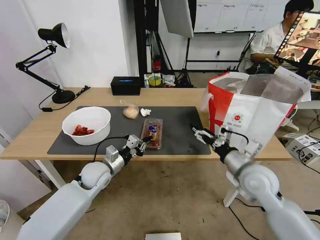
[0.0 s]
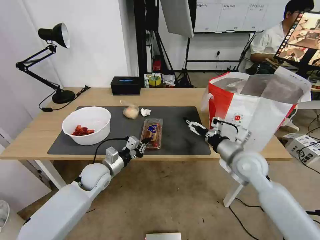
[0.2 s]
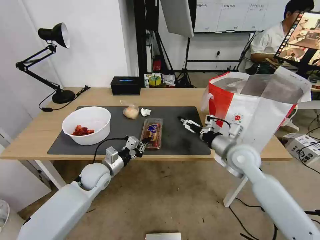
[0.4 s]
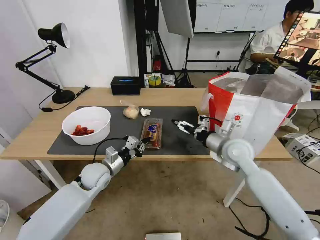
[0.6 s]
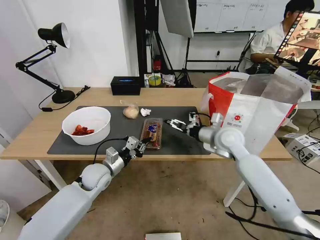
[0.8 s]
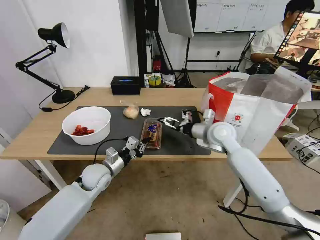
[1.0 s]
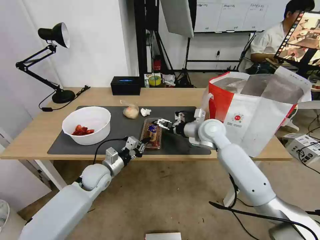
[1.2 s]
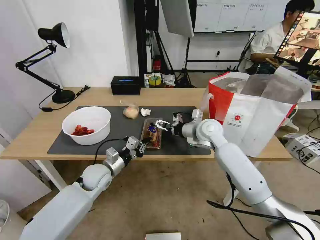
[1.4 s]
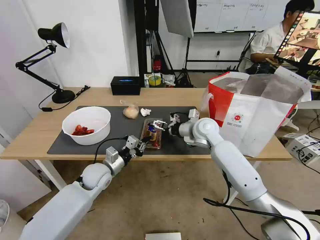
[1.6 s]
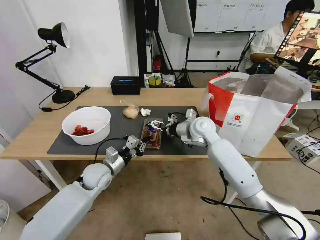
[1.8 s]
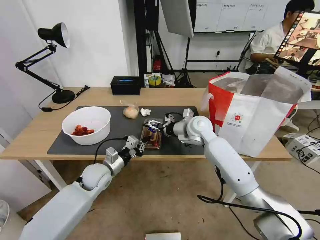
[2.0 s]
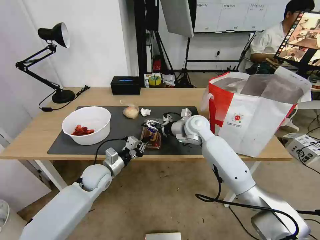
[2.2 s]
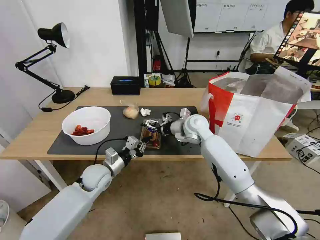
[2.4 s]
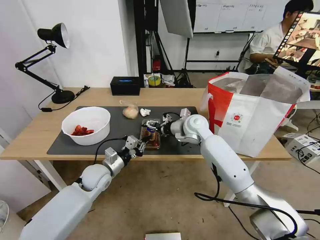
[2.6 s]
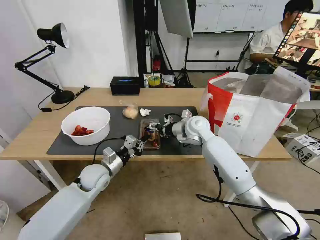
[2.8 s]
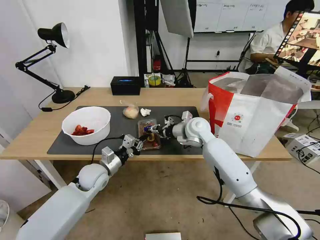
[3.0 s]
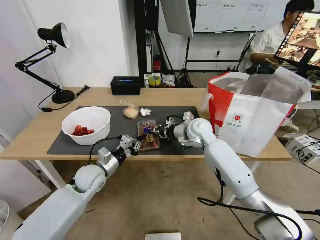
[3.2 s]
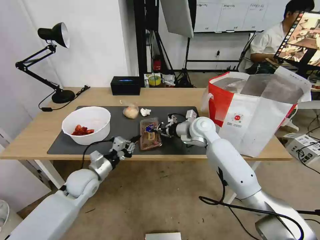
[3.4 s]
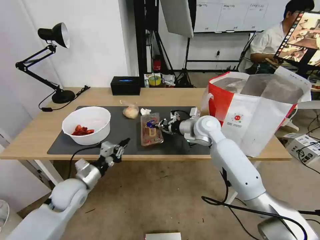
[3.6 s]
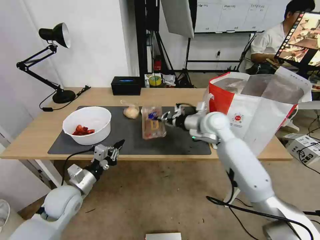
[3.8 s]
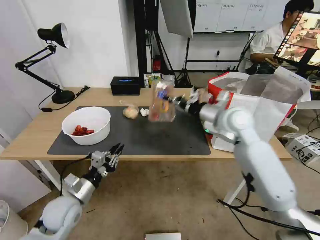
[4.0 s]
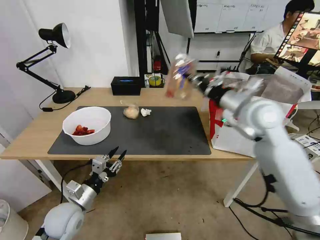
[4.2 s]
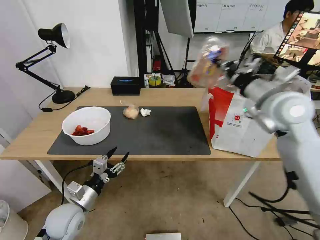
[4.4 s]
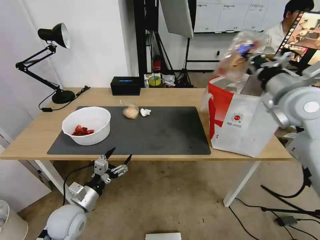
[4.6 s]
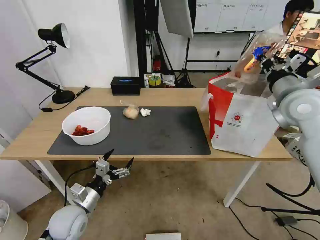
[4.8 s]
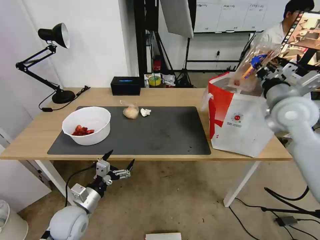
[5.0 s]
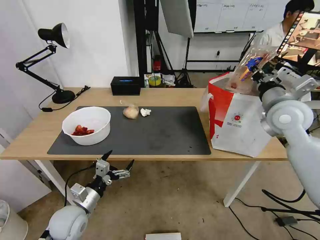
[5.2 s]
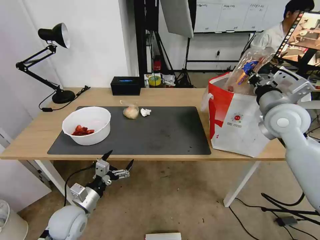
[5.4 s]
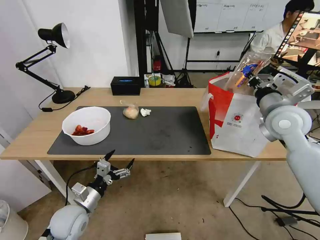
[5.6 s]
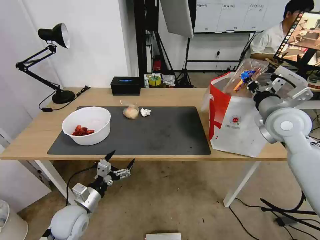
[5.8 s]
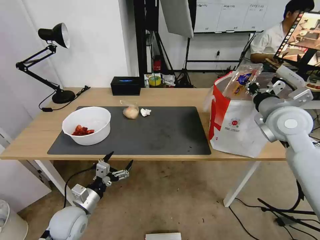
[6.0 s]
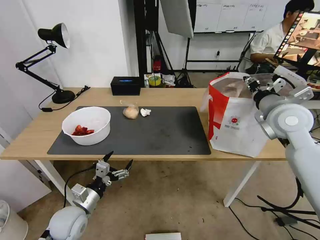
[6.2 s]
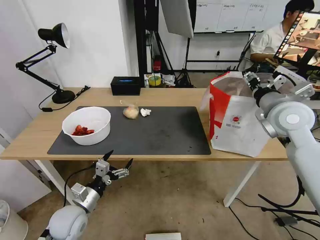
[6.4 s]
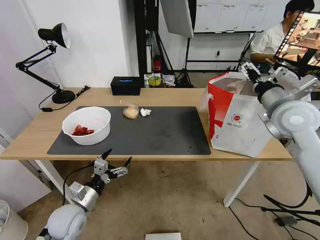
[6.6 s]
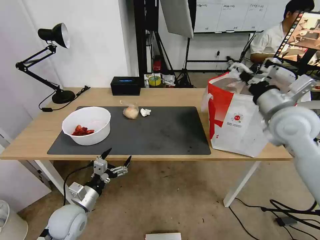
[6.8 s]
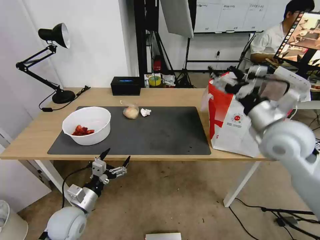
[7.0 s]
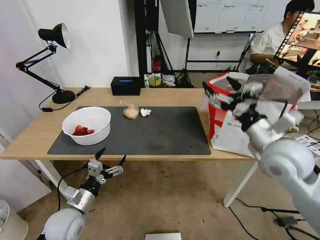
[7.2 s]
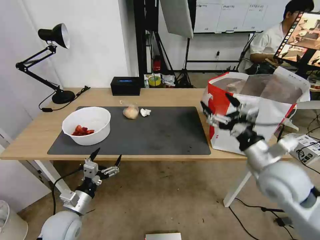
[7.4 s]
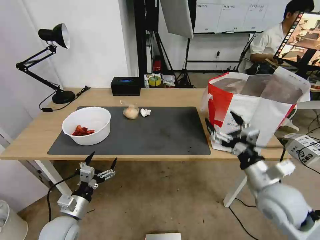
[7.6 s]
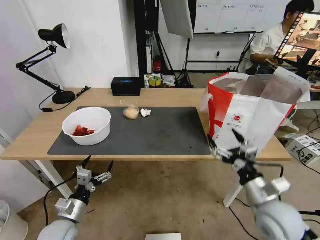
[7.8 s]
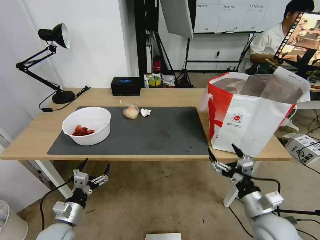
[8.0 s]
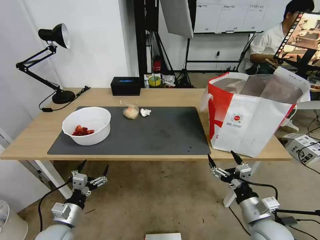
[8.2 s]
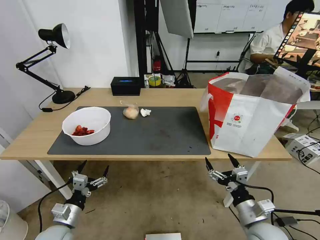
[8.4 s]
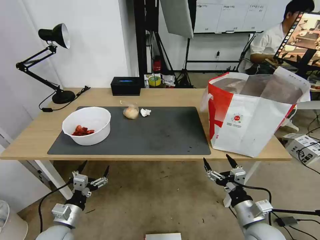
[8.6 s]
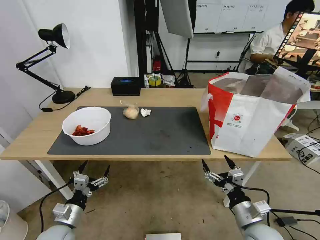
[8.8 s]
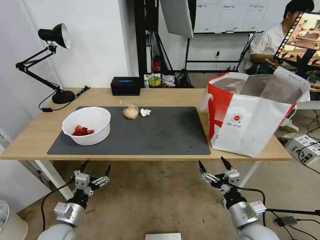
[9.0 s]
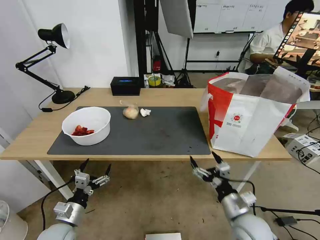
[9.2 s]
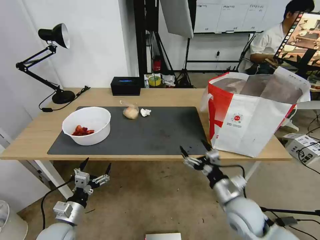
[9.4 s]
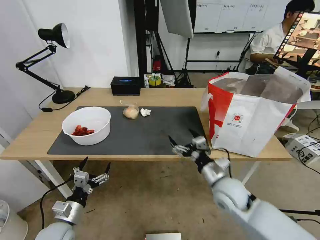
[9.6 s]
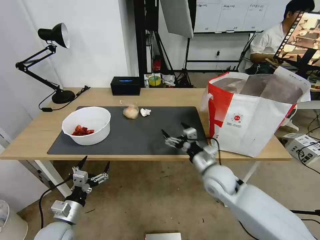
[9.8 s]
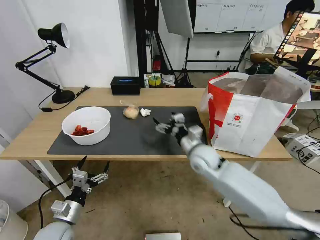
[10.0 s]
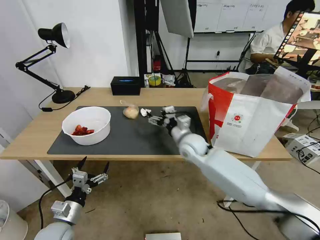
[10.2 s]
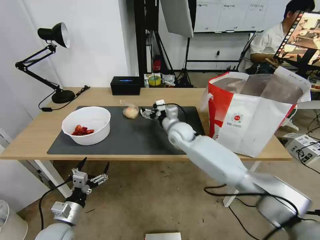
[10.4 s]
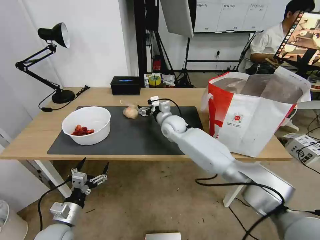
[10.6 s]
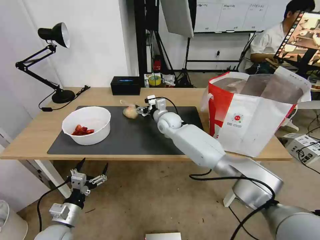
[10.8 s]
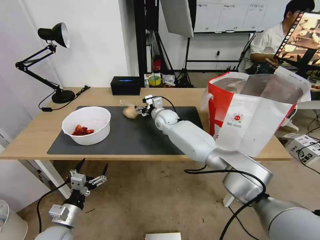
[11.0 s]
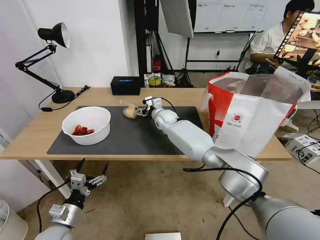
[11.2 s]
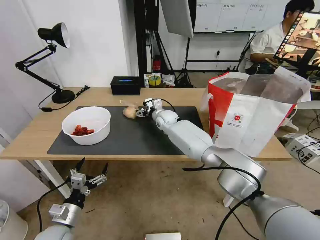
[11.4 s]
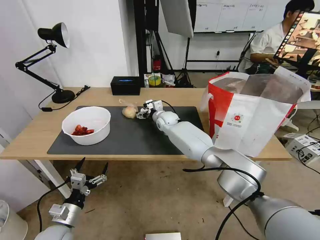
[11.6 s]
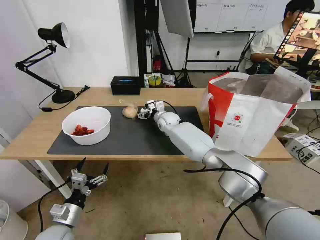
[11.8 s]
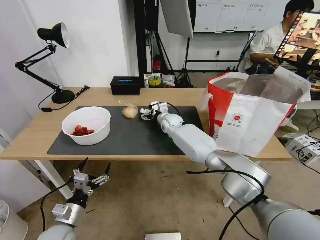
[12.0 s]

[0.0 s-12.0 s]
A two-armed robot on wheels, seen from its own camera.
Task of the whole recording: Pick up the trash from the table and place it into the takeout bag.
0.0 to 1.6 s: The right gripper is displaced forward and to the left by about 20 cm.
1.6 to 3.0 s: The right gripper closes up.
3.0 to 4.4 s: The right gripper moves upward, to the right and backward, about 25 cm, and closes its fingers. The left gripper is displaced backward by some 15 cm, and opens.
4.4 to 6.0 s: The right gripper ends up approximately 5 cm from where it was. The left gripper opens.
6.0 to 7.6 s: The right gripper goes some 20 cm backward and downward, and opens its fingers.
7.6 to 9.0 s: The right gripper is displaced downward and backward by approximately 15 cm.
9.0 to 10.4 s: The right gripper travels forward and to the left by about 40 cm.
10.4 to 12.0 s: The right gripper heads forward, covering about 10 cm.

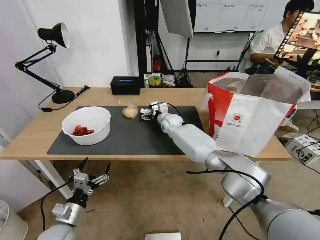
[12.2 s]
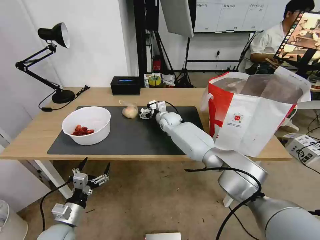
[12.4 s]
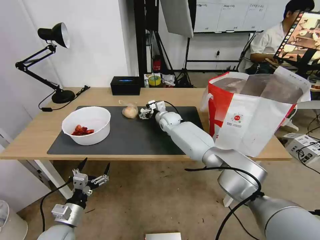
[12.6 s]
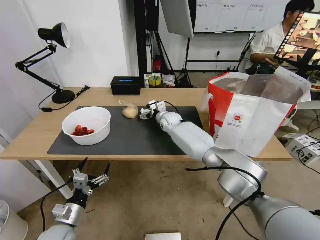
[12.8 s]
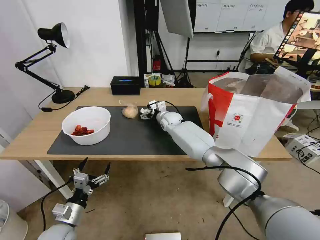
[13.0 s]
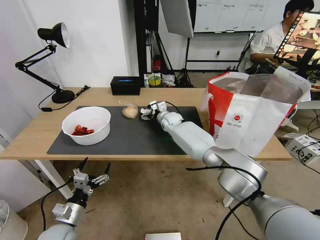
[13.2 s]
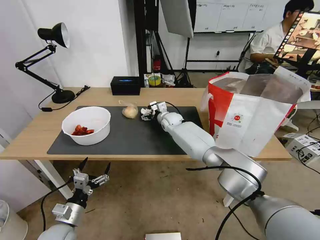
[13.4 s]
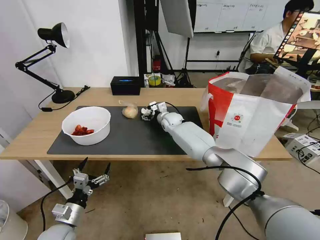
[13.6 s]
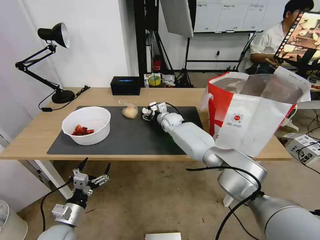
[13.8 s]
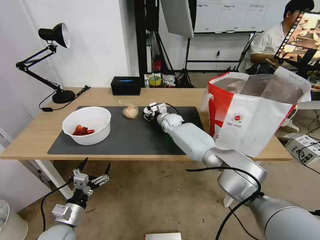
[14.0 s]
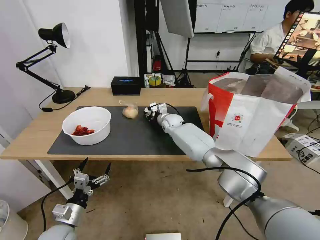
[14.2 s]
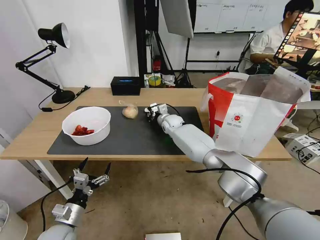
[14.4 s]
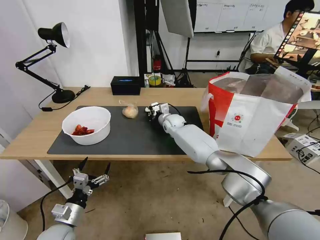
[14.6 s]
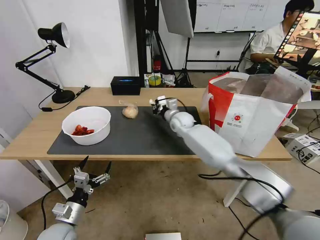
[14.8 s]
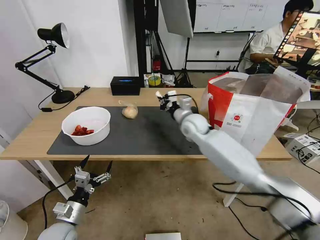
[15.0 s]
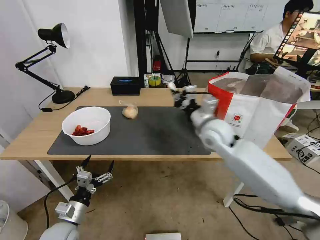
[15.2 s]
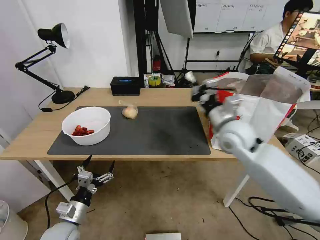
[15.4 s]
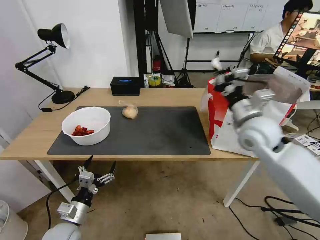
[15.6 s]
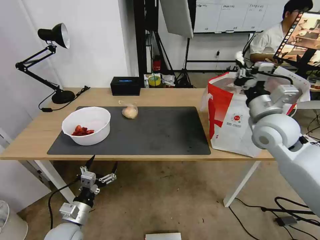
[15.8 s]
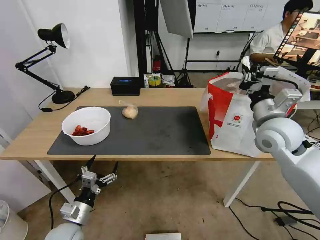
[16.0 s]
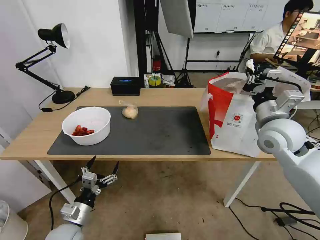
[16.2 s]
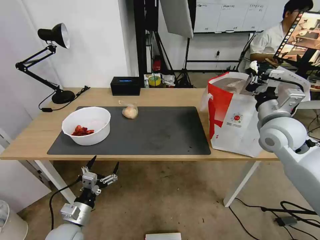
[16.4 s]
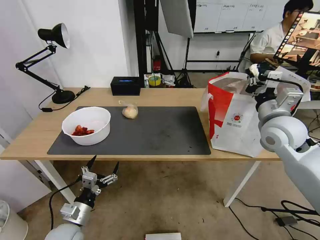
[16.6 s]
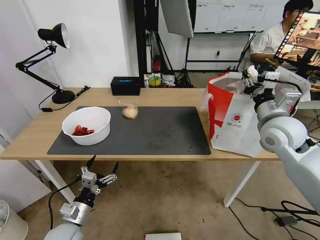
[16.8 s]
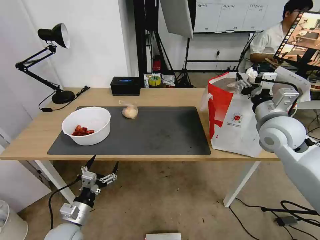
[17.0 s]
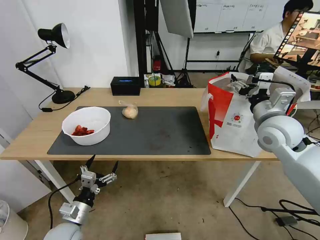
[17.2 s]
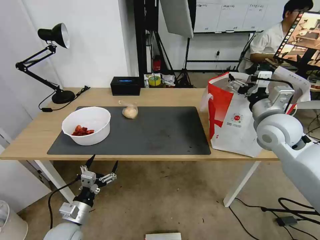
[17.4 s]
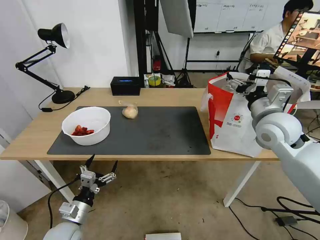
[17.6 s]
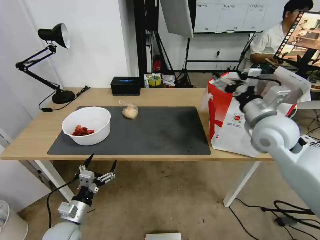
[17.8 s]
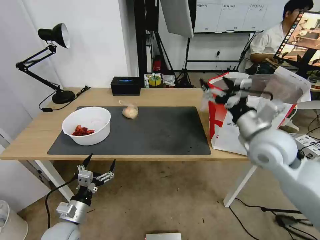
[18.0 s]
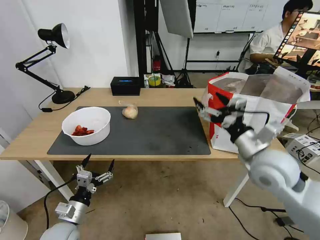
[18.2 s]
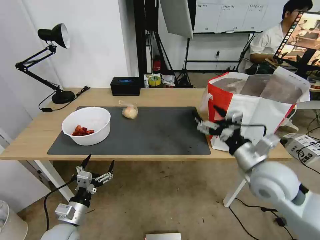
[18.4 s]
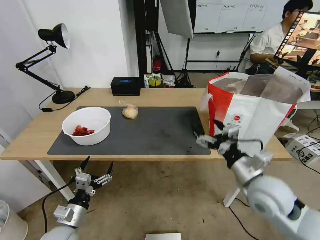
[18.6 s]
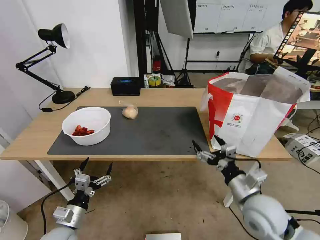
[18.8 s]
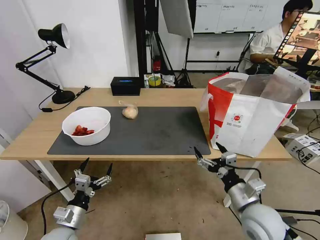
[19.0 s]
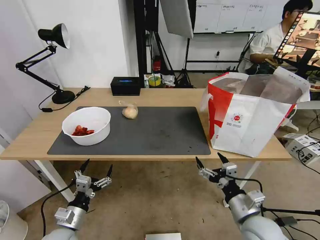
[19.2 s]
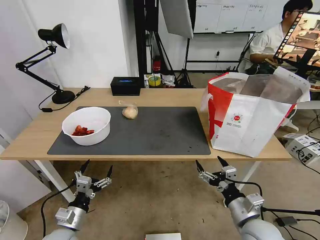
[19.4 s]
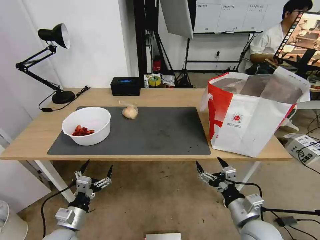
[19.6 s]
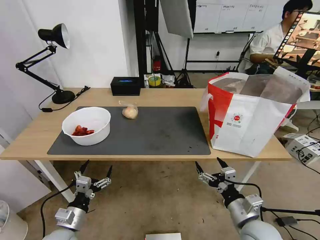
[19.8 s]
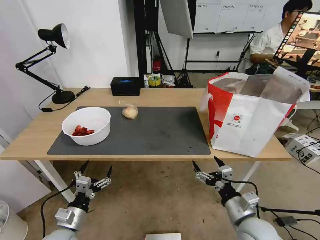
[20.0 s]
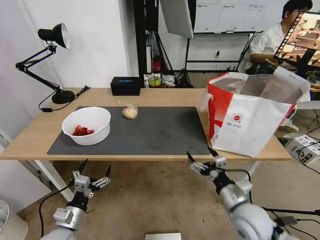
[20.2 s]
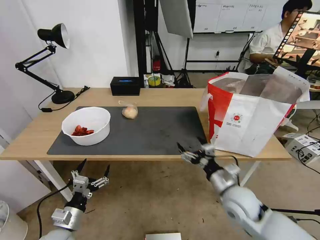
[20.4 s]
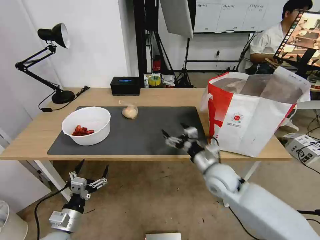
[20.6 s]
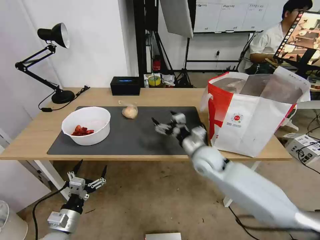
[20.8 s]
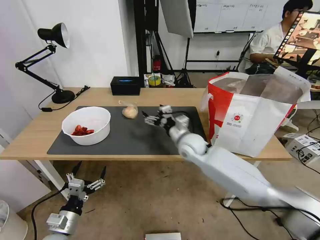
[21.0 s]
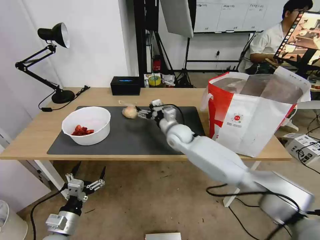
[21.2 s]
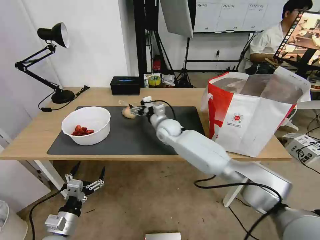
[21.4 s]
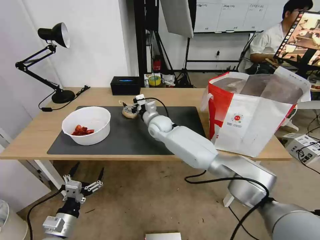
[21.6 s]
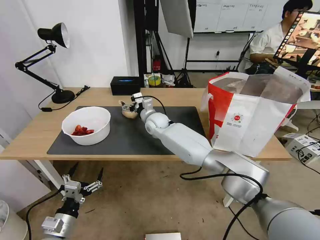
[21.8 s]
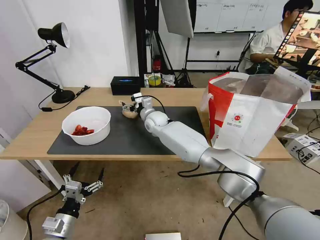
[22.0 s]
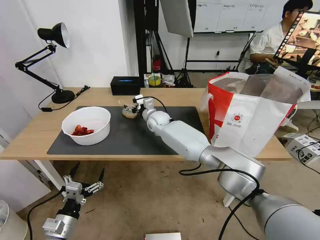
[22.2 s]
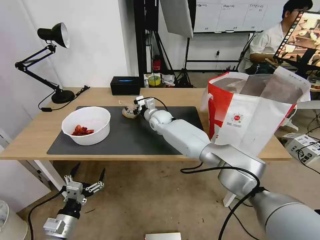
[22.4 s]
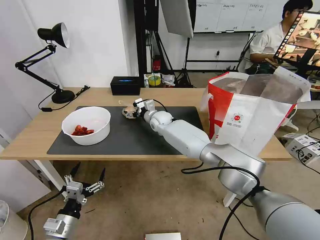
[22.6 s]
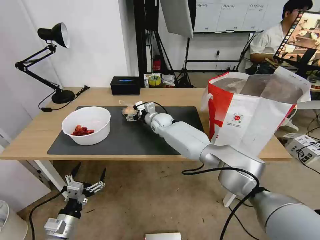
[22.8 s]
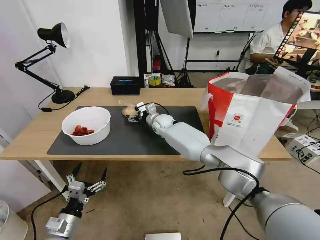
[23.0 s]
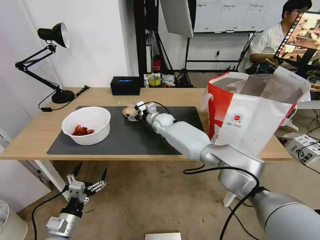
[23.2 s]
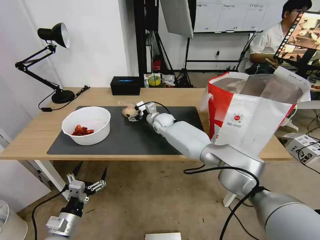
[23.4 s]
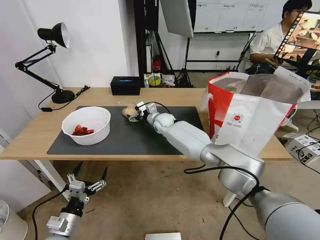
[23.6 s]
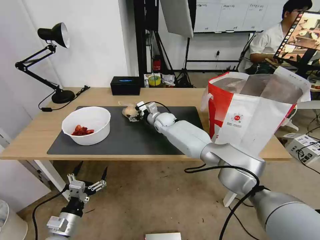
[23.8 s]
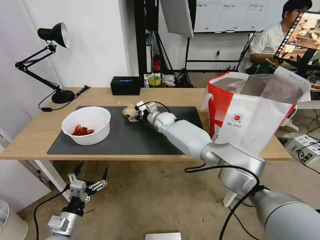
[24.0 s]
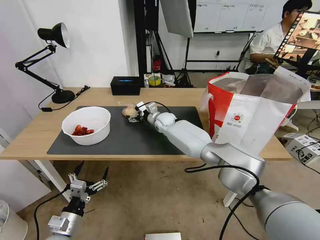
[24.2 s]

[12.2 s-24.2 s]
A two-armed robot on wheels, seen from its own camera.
Task of the whole recording: Pick up the trash from the table and place it into the takeout bag.
12.2 to 13.8 s: The grippers make only small movements.
13.8 to 15.2 s: The right gripper travels backward, upward and to the right by roughly 25 cm, and closes up.
15.2 to 16.6 s: The right gripper goes about 15 cm to the right.
16.6 to 18.2 s: The right gripper heads backward and to the left, covering some 10 cm, and opens its fingers.
18.2 to 19.8 s: The right gripper shifts about 20 cm downward and backward.
19.8 to 21.2 s: The right gripper is displaced forward and to the left by roughly 40 cm.
21.2 to 22.6 s: The right gripper moves forward and to the left, some 10 cm.
22.6 to 24.2 s: There are only small adjustments of the grippers.
